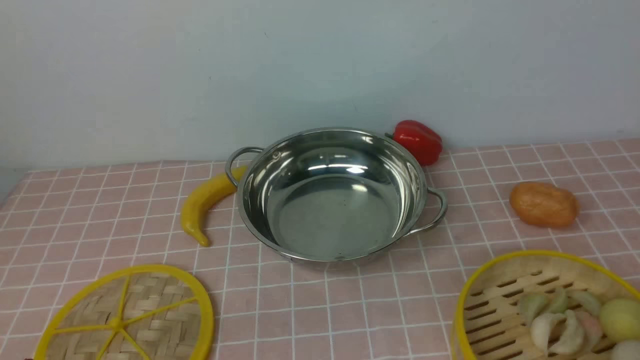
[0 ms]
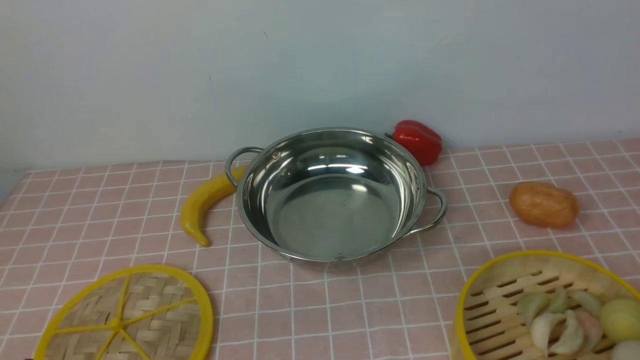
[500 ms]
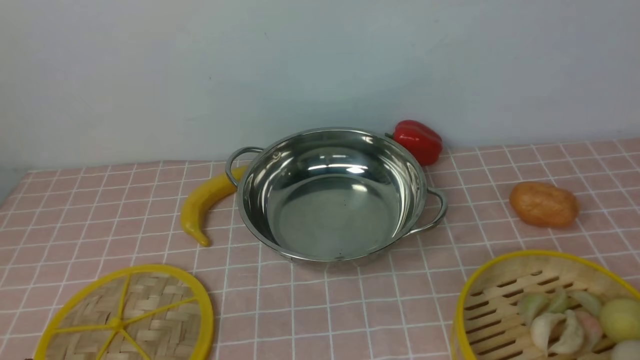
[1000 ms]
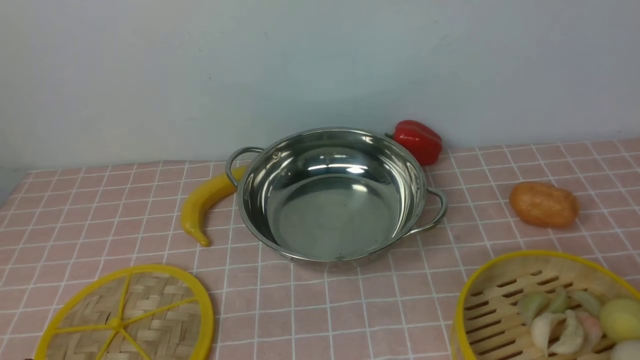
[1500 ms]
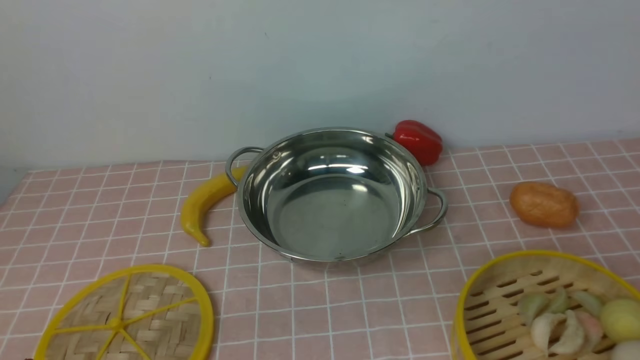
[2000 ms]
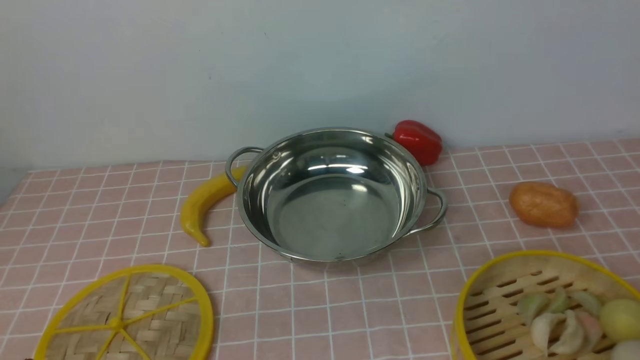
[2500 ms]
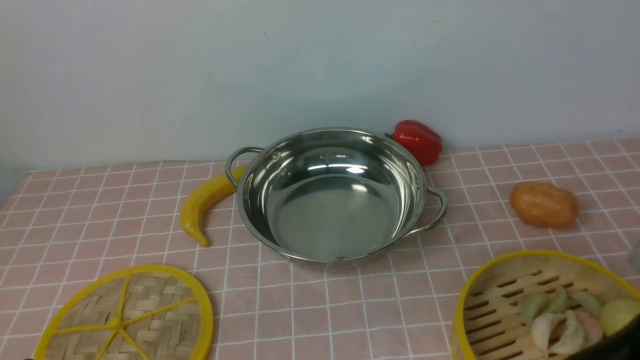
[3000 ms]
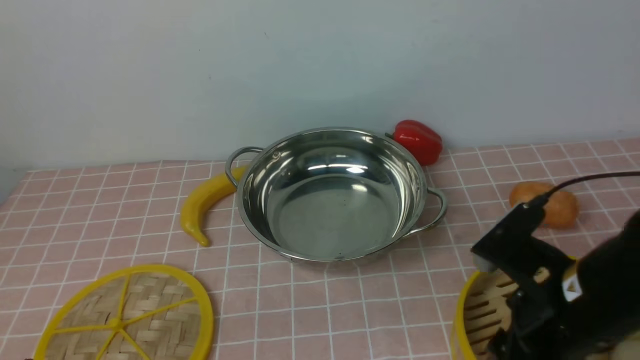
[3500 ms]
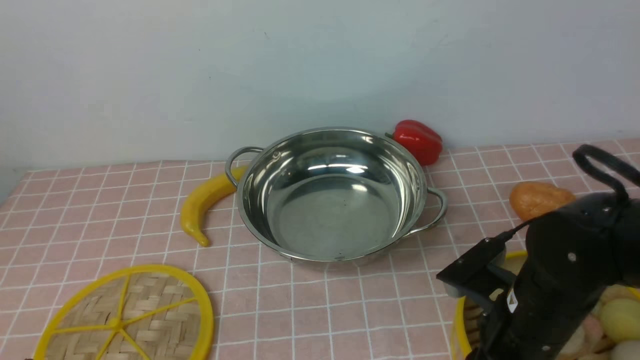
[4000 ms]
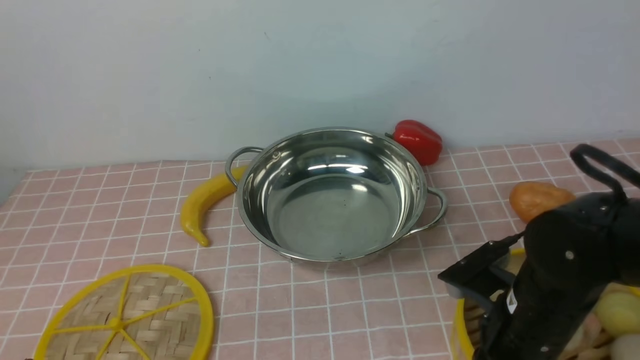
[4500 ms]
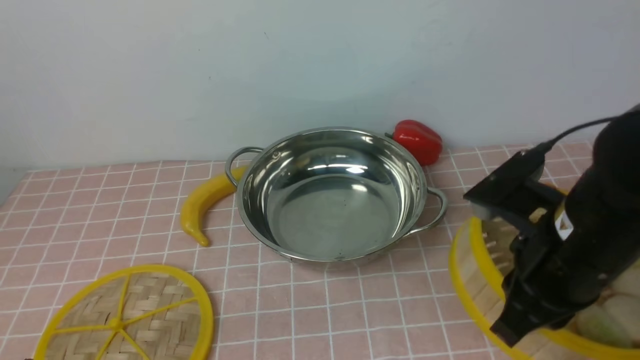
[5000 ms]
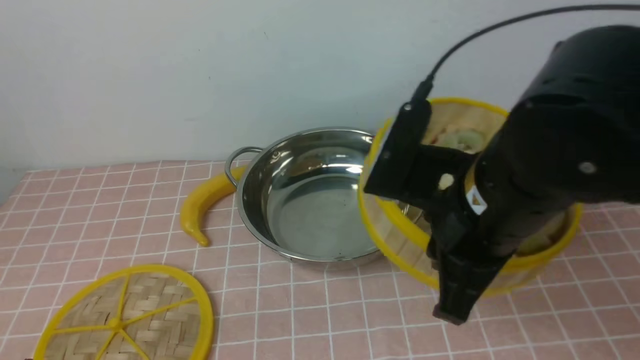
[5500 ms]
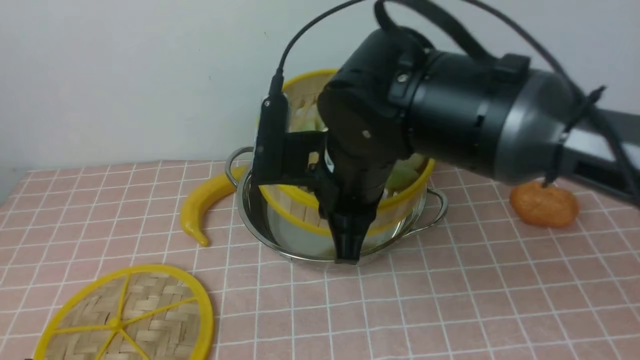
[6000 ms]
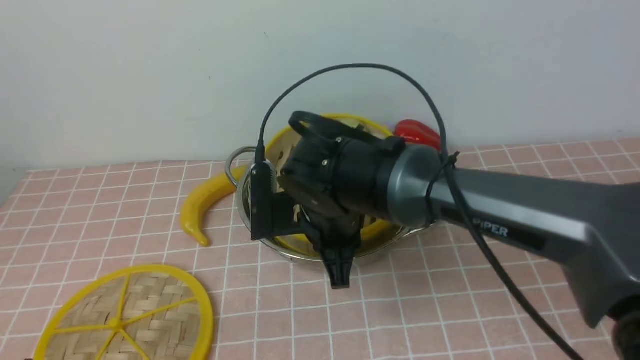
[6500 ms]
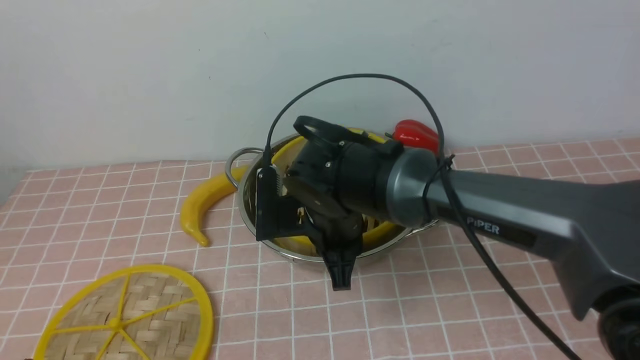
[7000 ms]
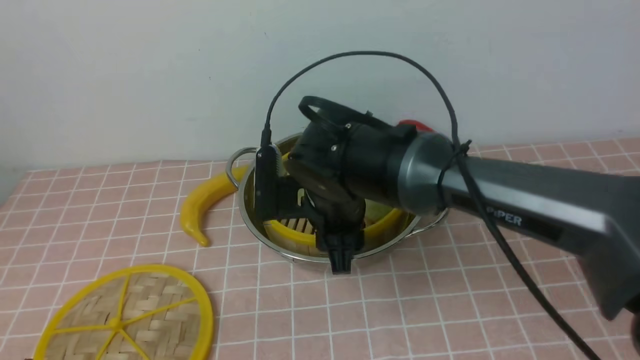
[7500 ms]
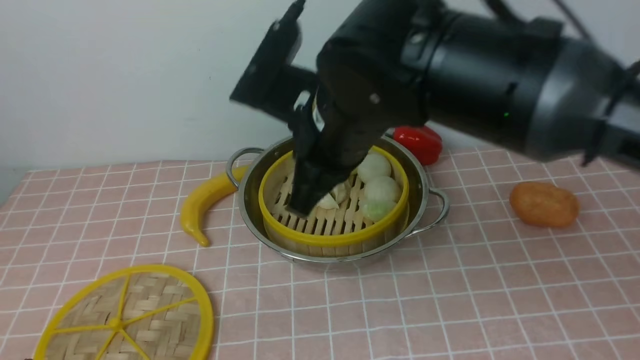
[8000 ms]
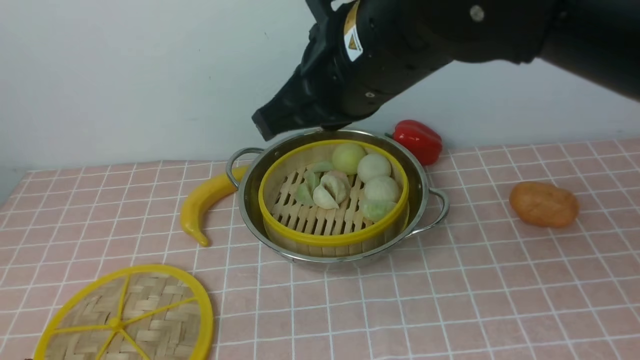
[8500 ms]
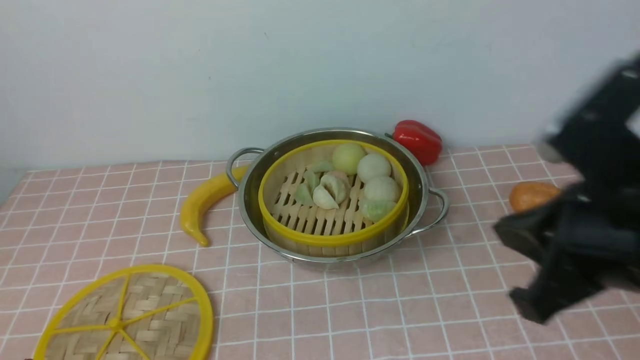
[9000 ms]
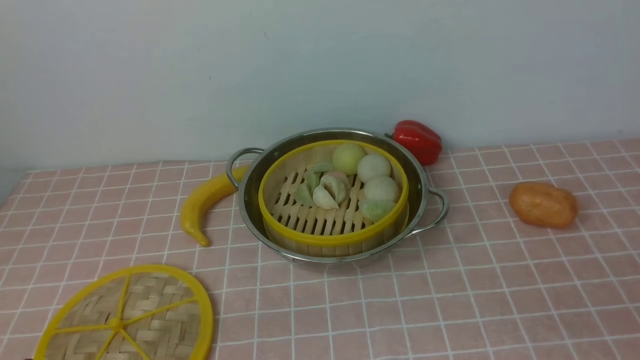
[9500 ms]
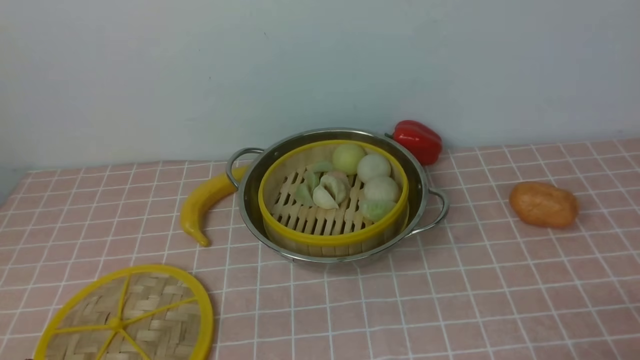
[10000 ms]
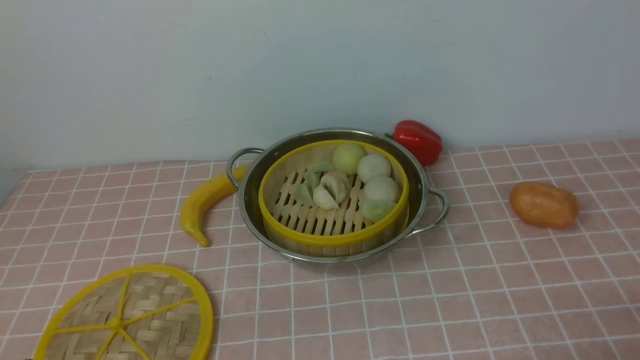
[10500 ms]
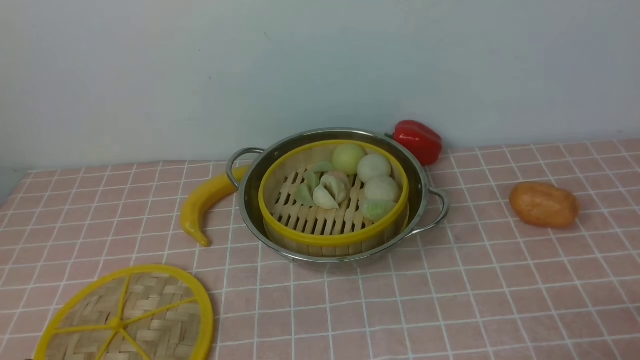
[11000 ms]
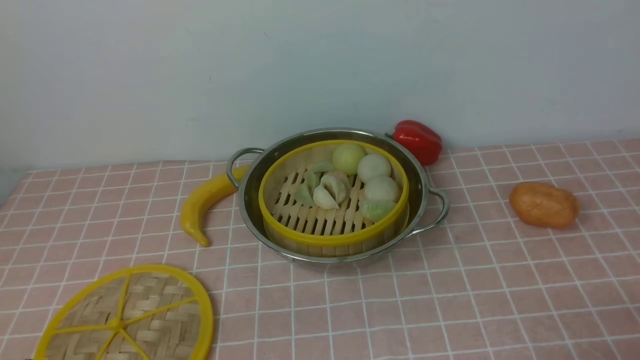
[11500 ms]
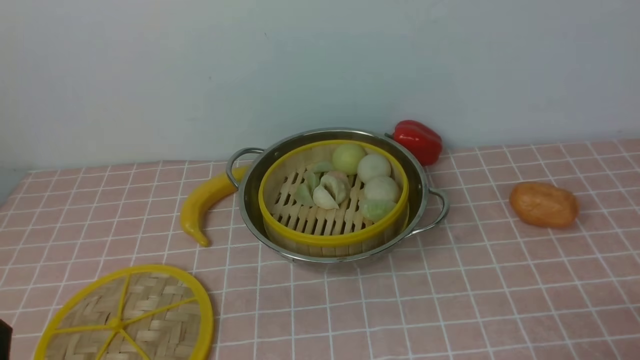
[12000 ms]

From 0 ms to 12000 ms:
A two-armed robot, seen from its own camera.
Task of the whole recording: place the steamer in the pot on the pink tablecloth, and put the lid on the steamer.
Step, from 0 ms to 4500 ms: use the right arm to lift the steamer closest to it.
Step, from 5000 ms to 7000 ms: use the right arm to put the steamer into the iron steamer pot in the middle.
From 2000 ms to 4000 ms: The right gripper shifts roughly 25 cm forward, to the left and downward.
From 4000 ms to 6000 ms: The right gripper is displaced to the left, upward and forward by roughly 20 cm, and closes.
From 6000 ms to 8000 ms: The right gripper moves roughly 10 cm downward and comes back, and opens and closes again.
From 8000 ms to 10000 ms: The right gripper shifts some 40 cm to the right, backward and downward.

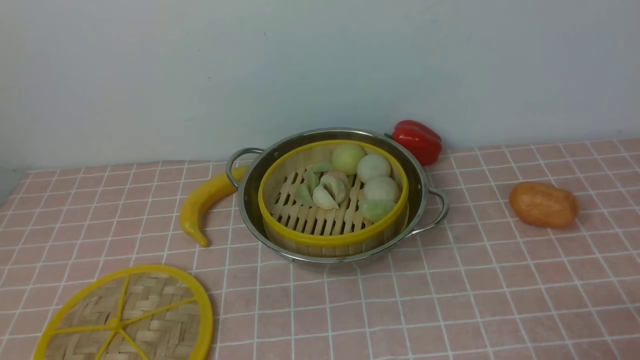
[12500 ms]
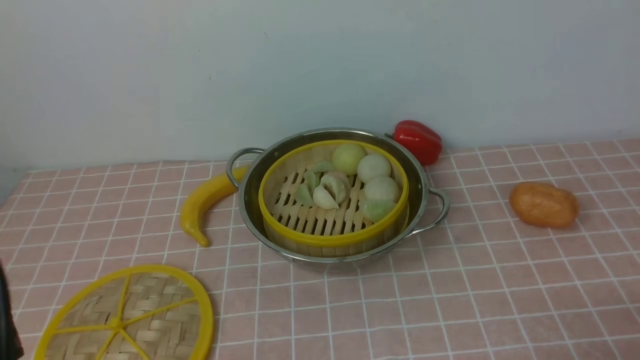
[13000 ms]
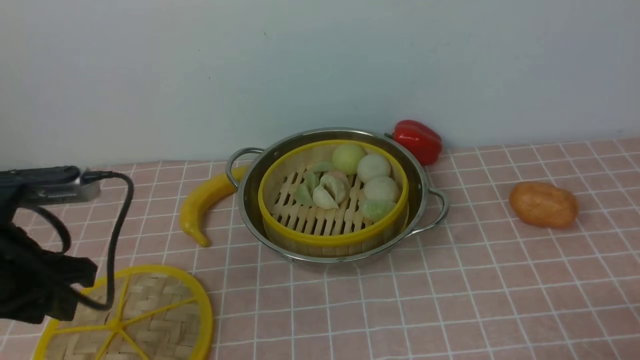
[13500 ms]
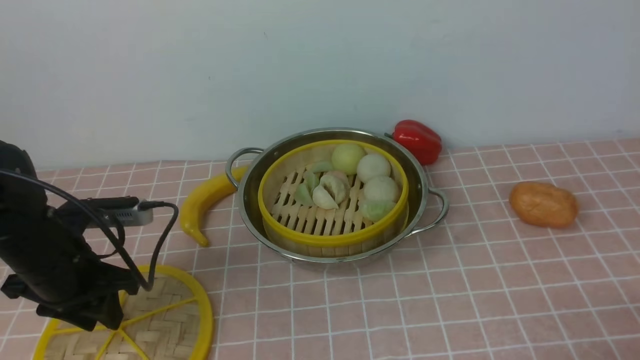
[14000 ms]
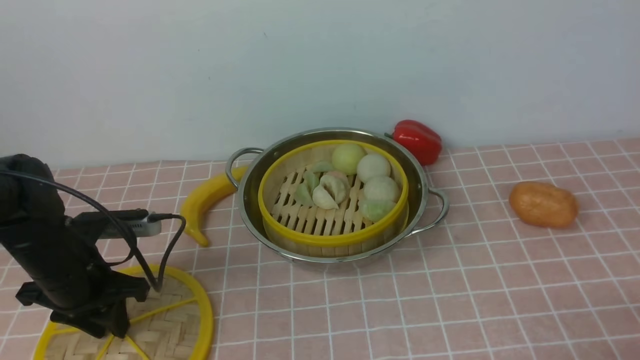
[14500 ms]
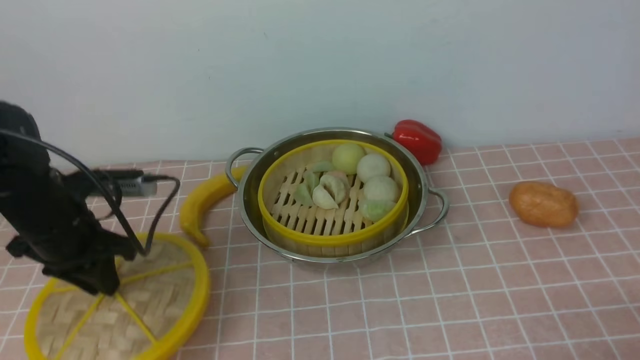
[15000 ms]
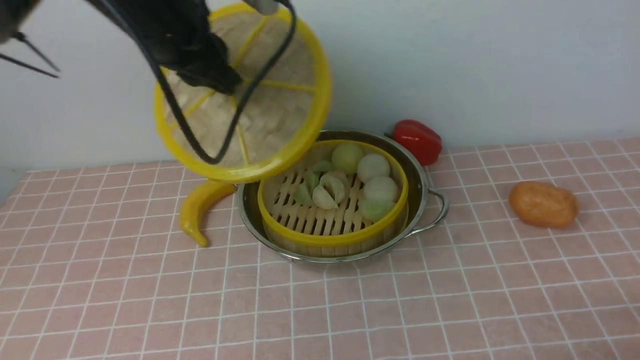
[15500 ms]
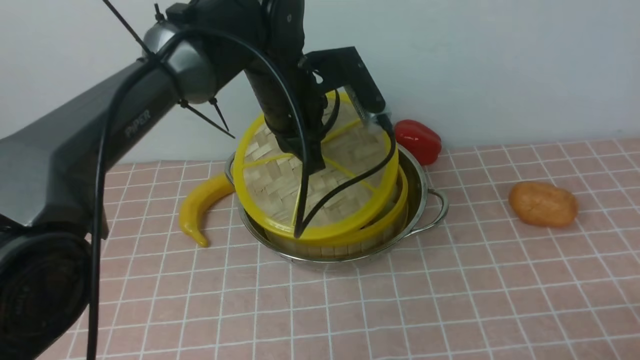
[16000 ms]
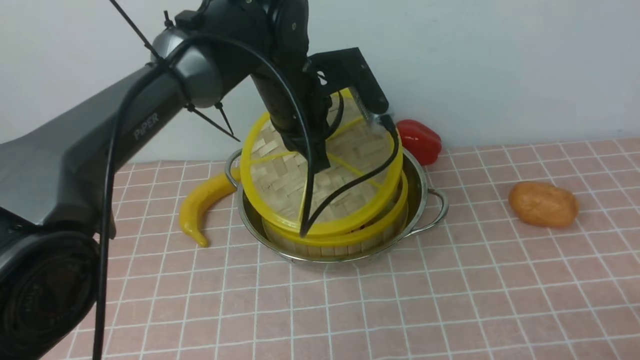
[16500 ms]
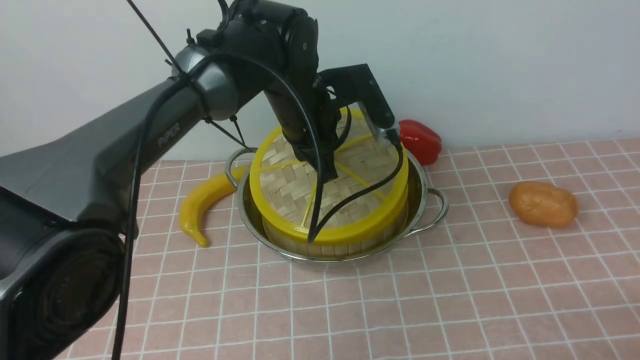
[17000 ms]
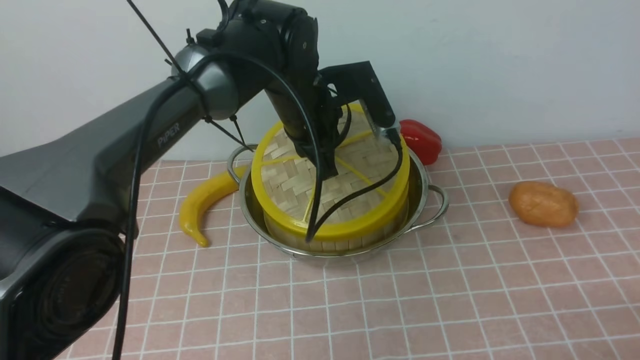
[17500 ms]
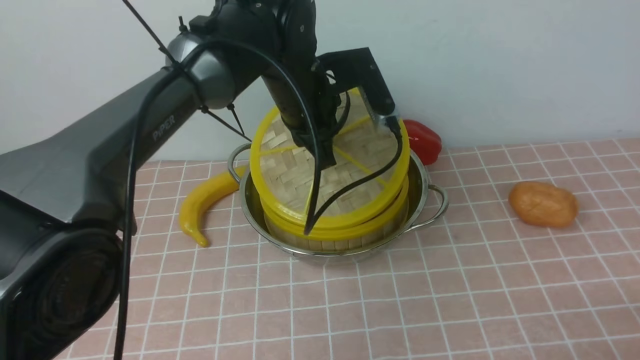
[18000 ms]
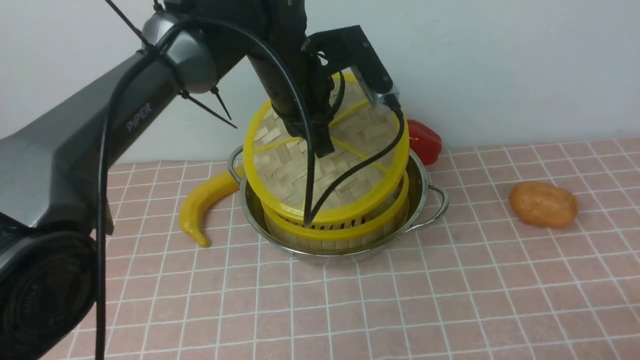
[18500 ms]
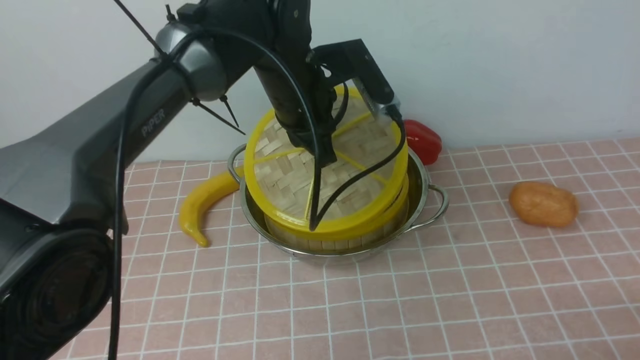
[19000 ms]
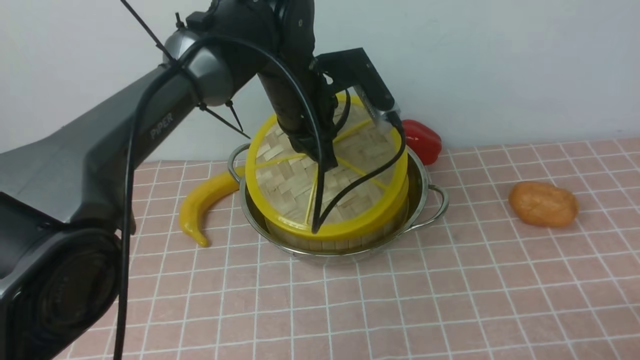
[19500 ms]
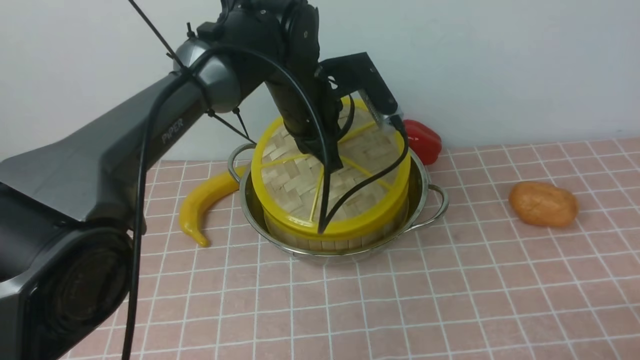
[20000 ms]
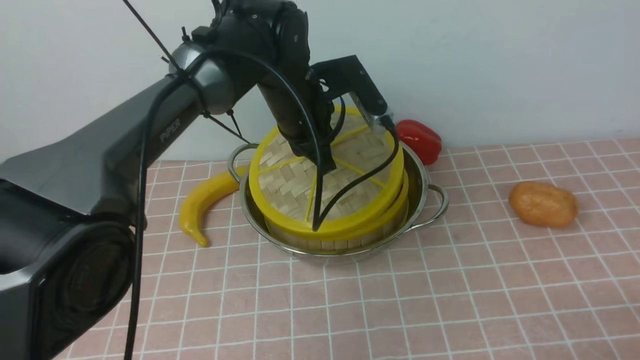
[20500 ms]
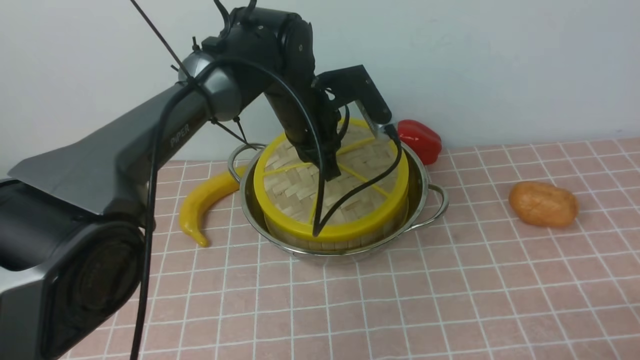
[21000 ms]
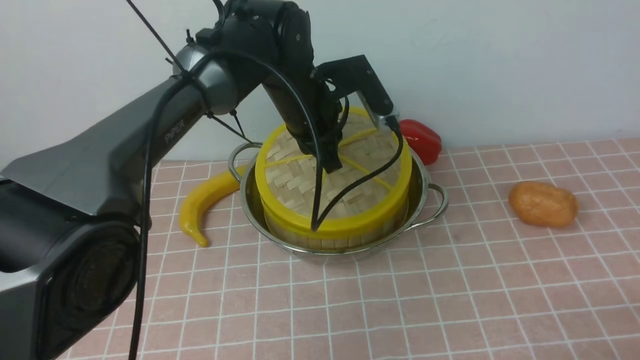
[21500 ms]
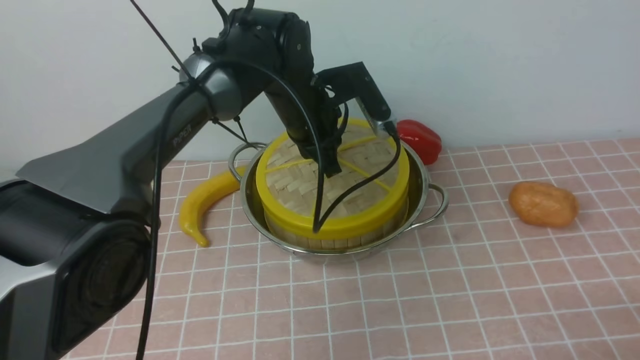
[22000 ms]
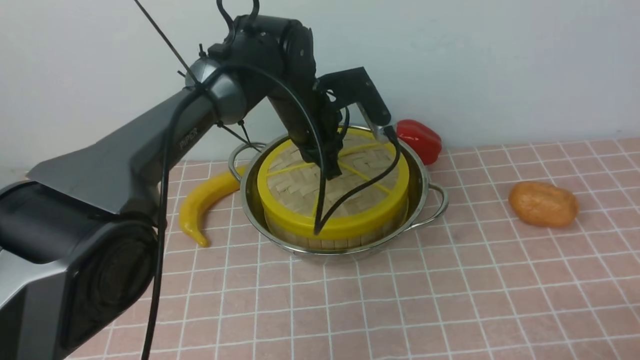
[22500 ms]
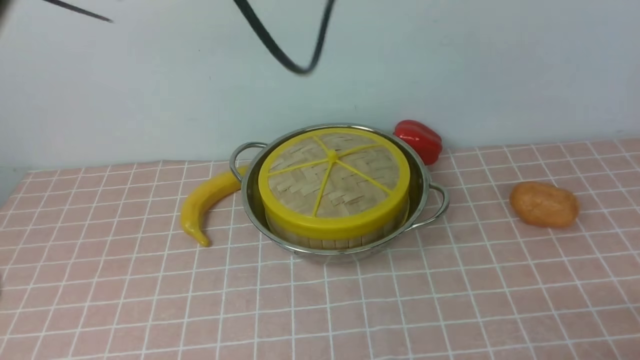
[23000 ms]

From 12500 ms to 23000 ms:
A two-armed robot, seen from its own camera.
Task of the whole recording: place the steamer in the pot on the pink tablecloth, and put the lid on the steamer.
Step, from 12500 ms to 14500 ms: use the left arm to lift the lid of the steamer.
Step, from 15000 ms to 22500 ms: use the left arm to place the steamer lid on the steamer.
From 12500 ms to 14500 ms: The left gripper moves forward, about 25 cm.
From 14500 ms to 16500 ms: The left gripper moves to the right, forward and upward, approximately 30 cm.
From 16500 ms to 19000 ms: The grippers move only a little.
From 19000 ms to 21000 ms: The left gripper shifts by about 5 cm.
From 21000 ms to 23000 ms: The left gripper shifts about 20 cm upward, and opens.
